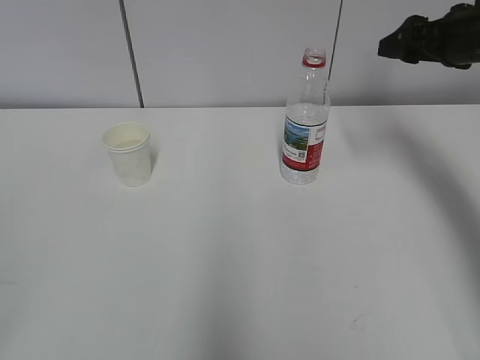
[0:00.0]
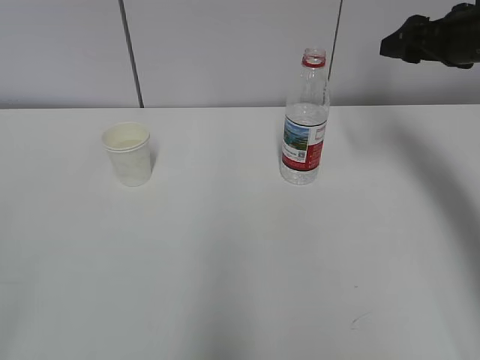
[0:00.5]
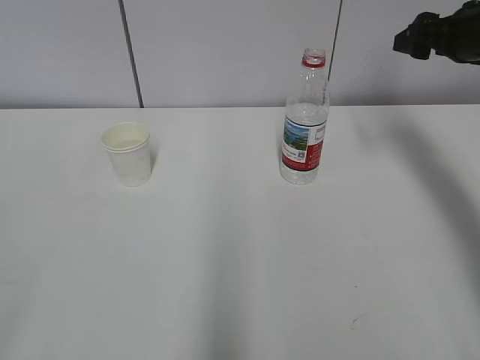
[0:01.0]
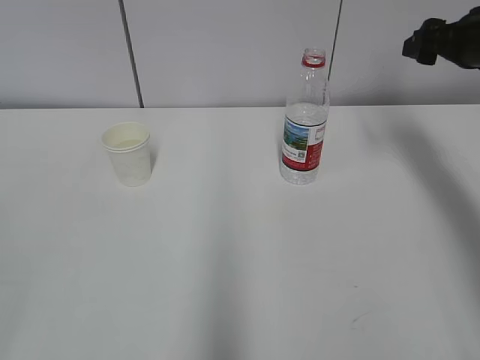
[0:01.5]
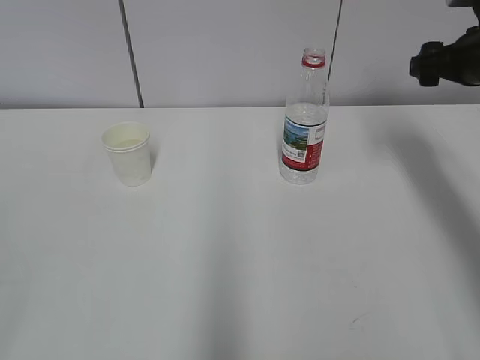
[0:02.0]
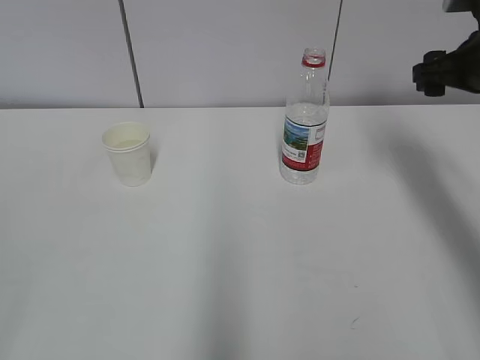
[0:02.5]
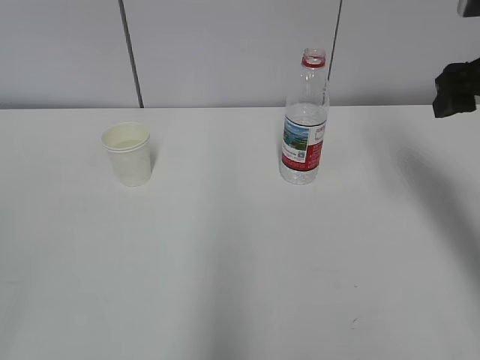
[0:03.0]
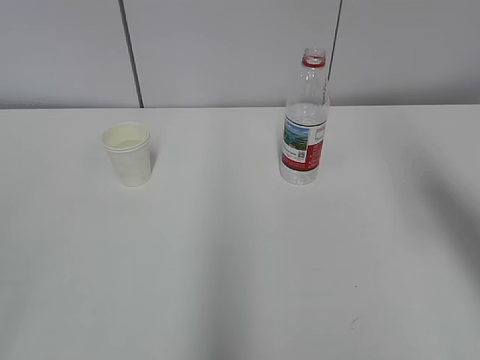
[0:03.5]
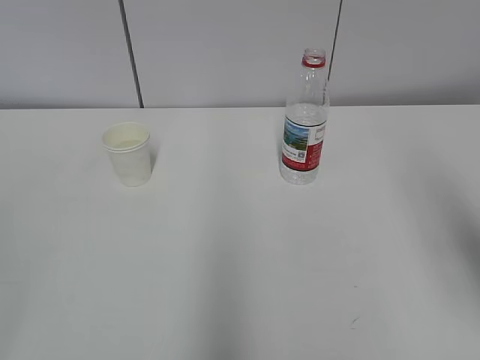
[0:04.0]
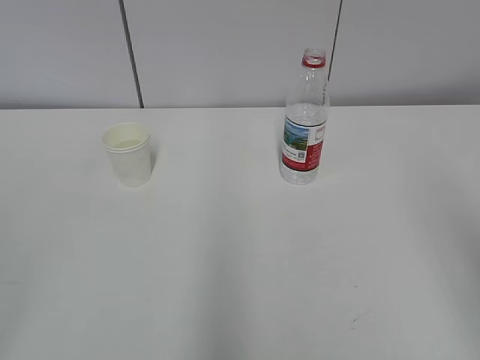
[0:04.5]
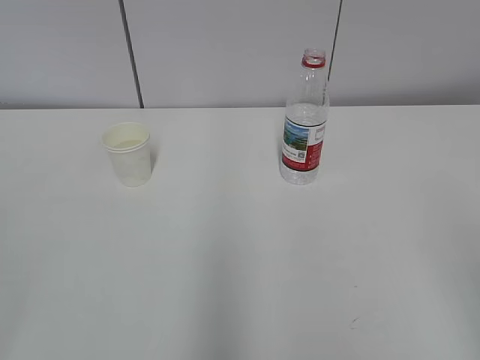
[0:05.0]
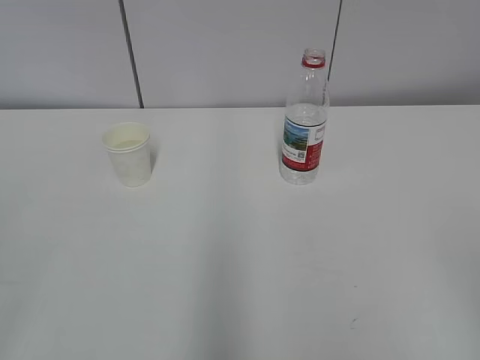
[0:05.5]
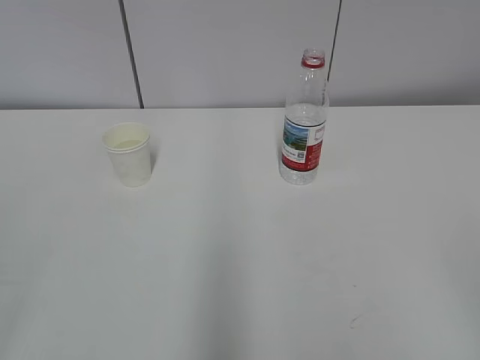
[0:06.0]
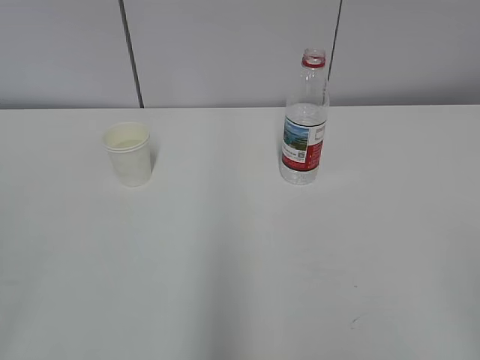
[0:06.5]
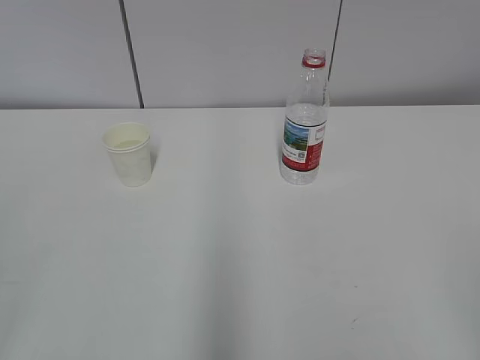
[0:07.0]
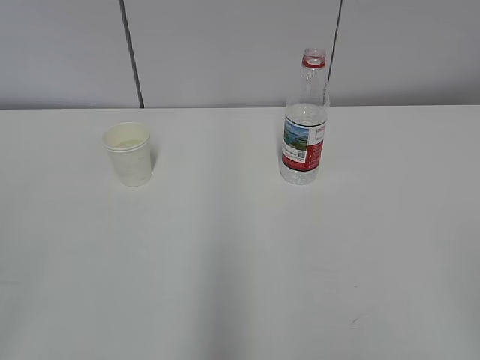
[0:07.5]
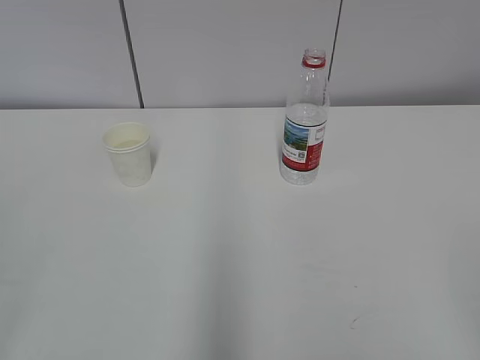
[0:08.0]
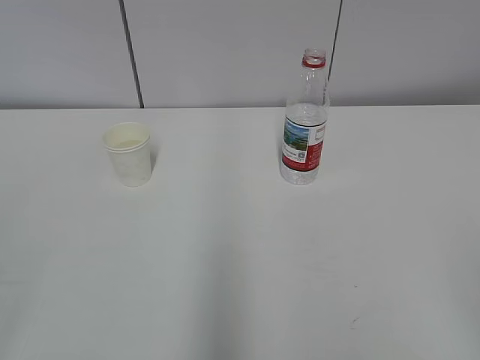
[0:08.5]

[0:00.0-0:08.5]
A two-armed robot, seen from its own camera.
0:00.0 to 0:02.0: The grippers stay close to where they were, moving slightly.
0:02.0 to 0:04.0: The right gripper moves backward, approximately 25 cm.
0:04.0 to 0:06.5: The right gripper travels backward and downward by about 20 cm.
0:06.5 to 0:08.5: The two grippers keep their place.
